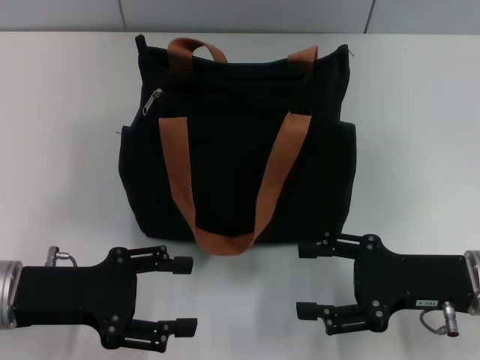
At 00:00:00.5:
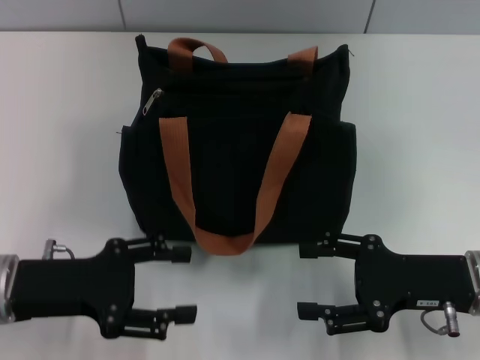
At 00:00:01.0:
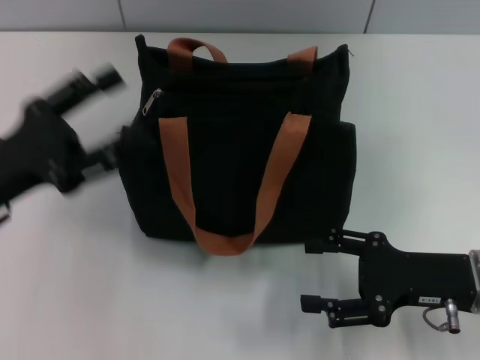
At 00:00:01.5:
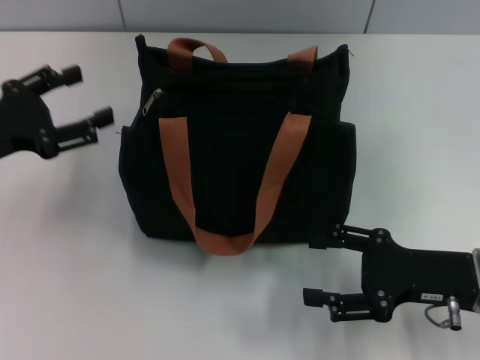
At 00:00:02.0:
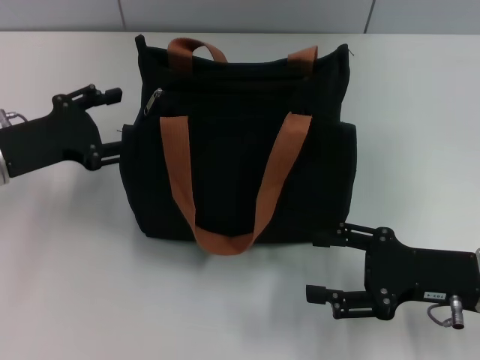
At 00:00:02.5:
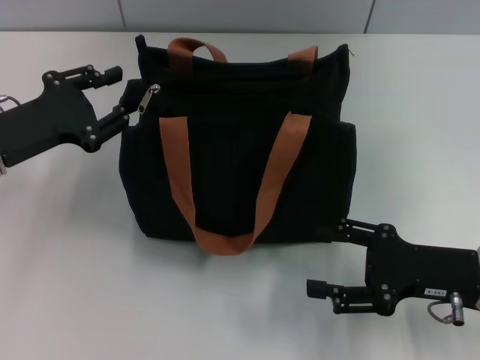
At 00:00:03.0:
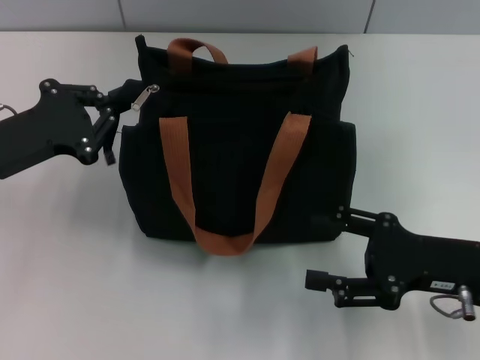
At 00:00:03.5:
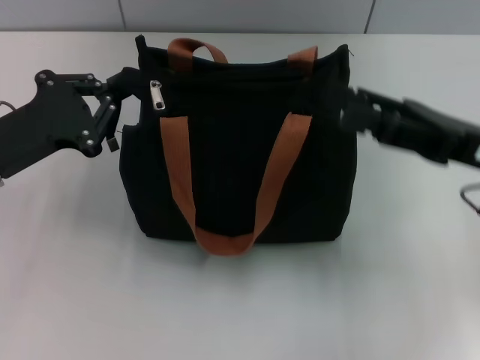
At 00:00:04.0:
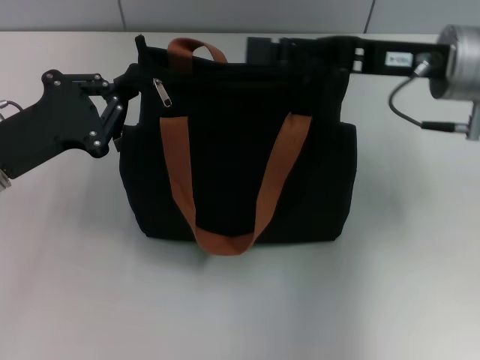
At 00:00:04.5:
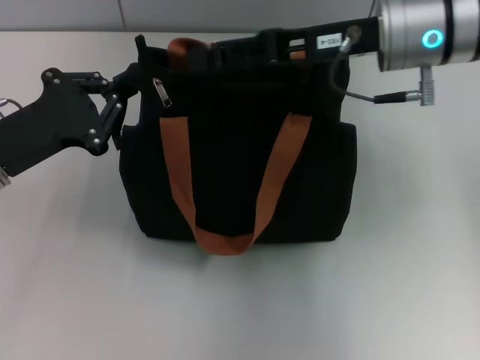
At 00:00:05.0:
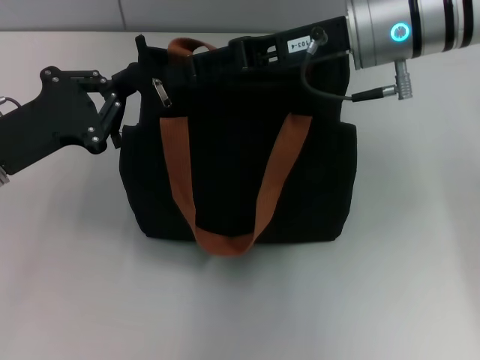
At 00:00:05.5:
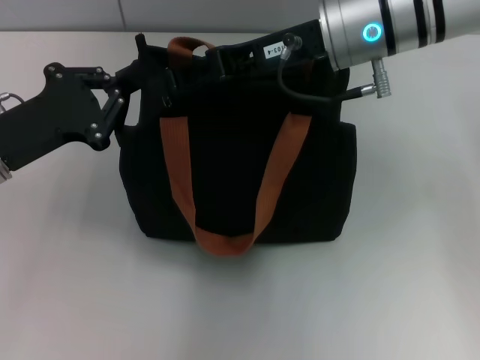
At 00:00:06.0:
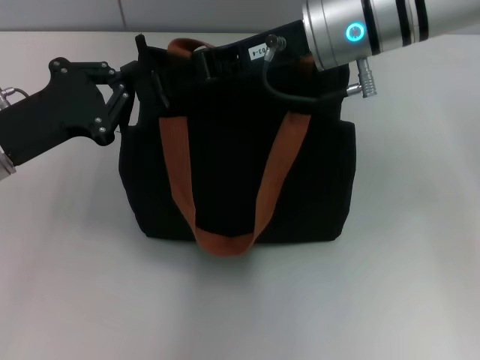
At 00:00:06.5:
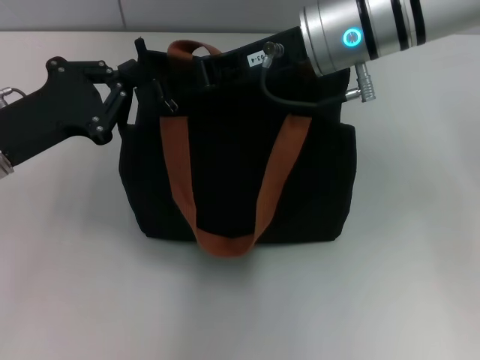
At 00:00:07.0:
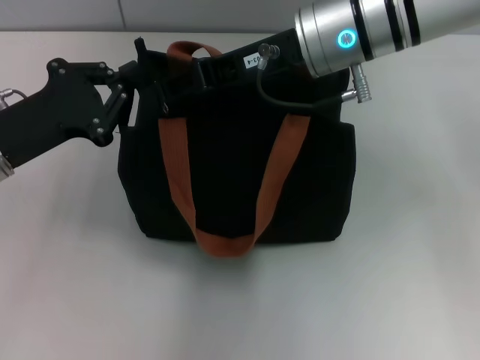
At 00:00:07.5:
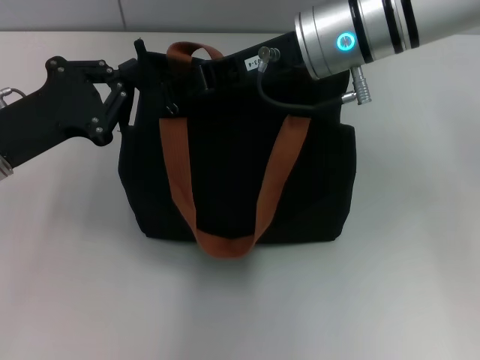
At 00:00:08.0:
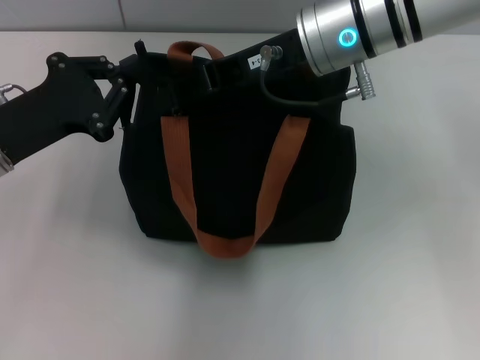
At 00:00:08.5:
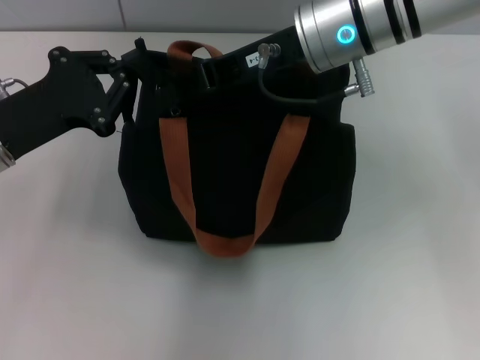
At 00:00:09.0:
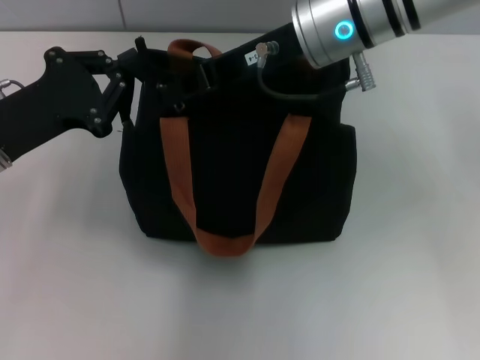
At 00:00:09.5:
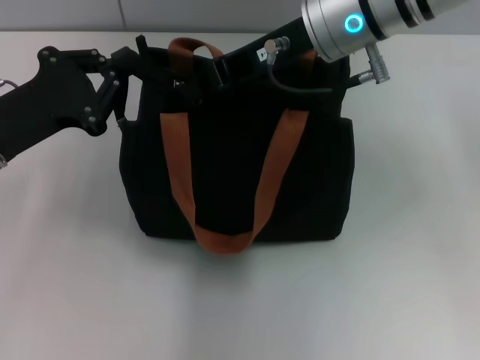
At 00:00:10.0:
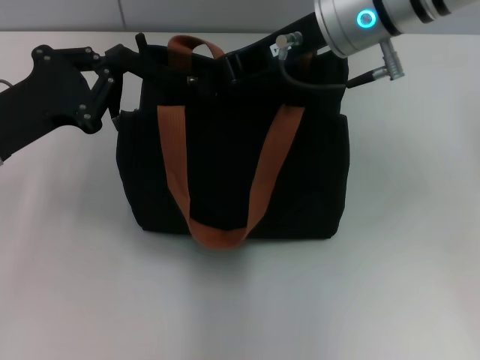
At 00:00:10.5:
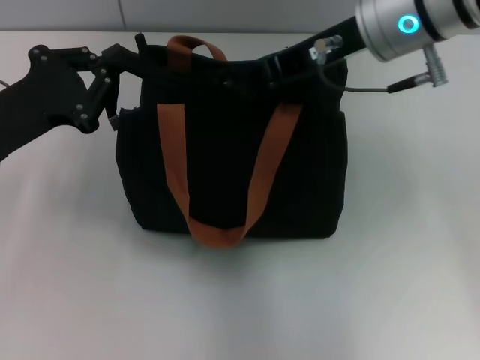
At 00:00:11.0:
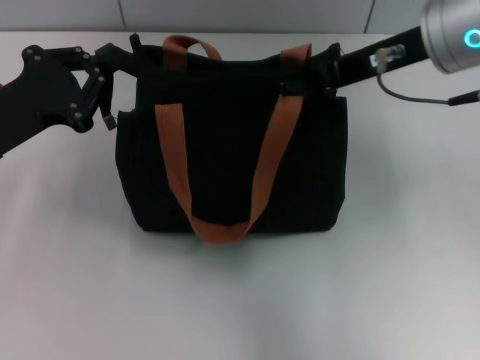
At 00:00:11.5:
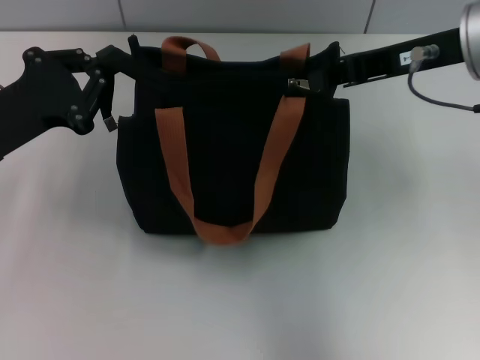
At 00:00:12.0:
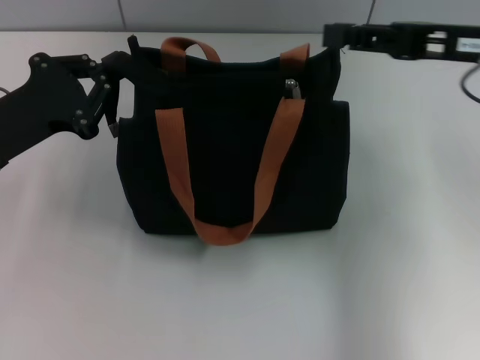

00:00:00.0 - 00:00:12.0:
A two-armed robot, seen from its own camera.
Step, 00:00:00.0 - 00:00:11.5: Pull up the zipper with your right hand.
00:00:00.0 - 00:00:02.0: The left gripper moves forward, roughly 10 cm.
00:00:02.0 - 00:00:04.0: The left gripper closes up. Meanwhile the right gripper heads upward, forward and to the left, covering some 20 cm.
00:00:04.0 - 00:00:06.0: The right gripper is displaced to the left by roughly 10 cm.
00:00:06.0 - 00:00:08.0: The right gripper closes.
00:00:08.0 - 00:00:10.0: The grippers make only small movements.
00:00:10.0 - 00:00:12.0: The right gripper goes roughly 15 cm to the right, and opens its fingers.

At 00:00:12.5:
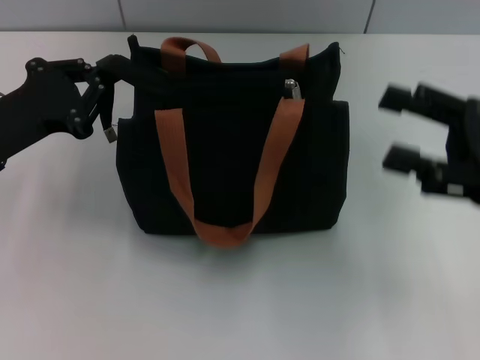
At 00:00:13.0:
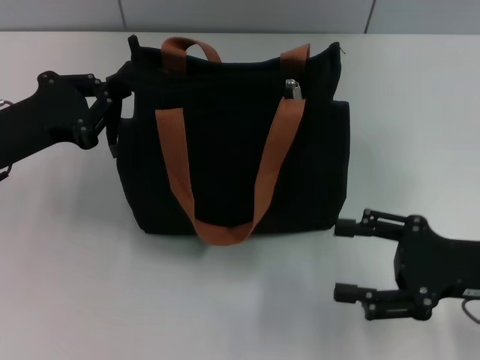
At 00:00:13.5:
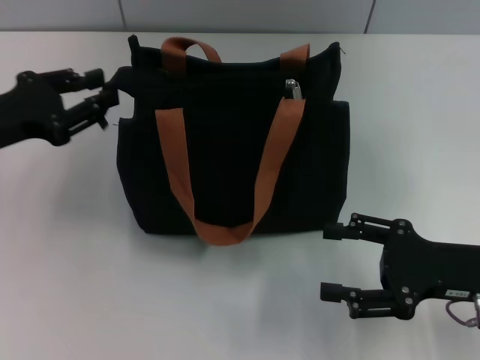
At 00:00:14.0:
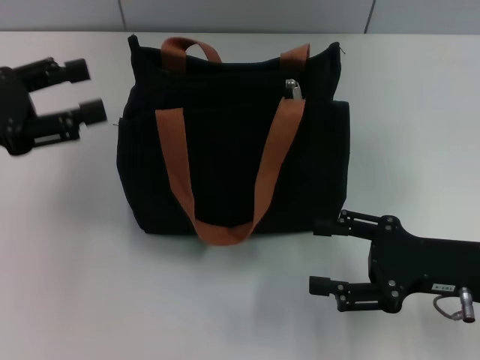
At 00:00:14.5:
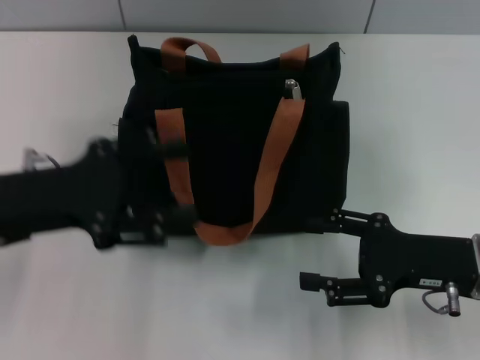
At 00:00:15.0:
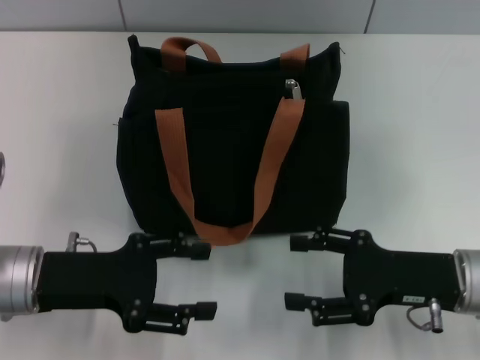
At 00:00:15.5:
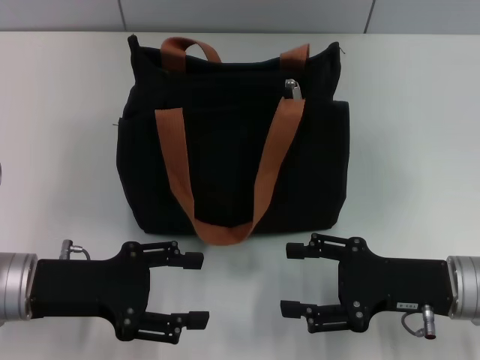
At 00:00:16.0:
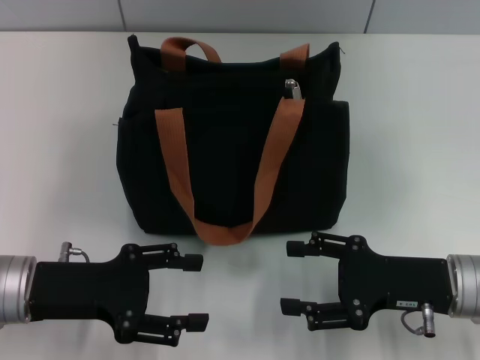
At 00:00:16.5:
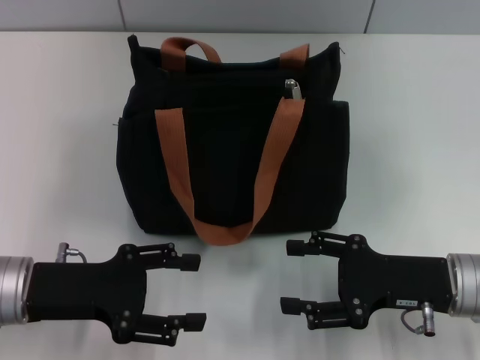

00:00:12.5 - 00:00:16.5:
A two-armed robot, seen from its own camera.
Step, 00:00:12.5 - 00:00:13.5: Grab the zipper with your left hand.
00:00:12.5 - 00:00:14.5: The right gripper moves downward, roughly 10 cm; the left gripper ends up roughly 5 cm from where it was, and opens up.
00:00:14.5 - 00:00:16.5: The left gripper heads downward, covering roughly 5 cm.

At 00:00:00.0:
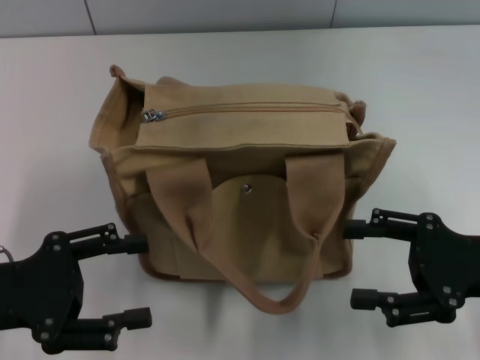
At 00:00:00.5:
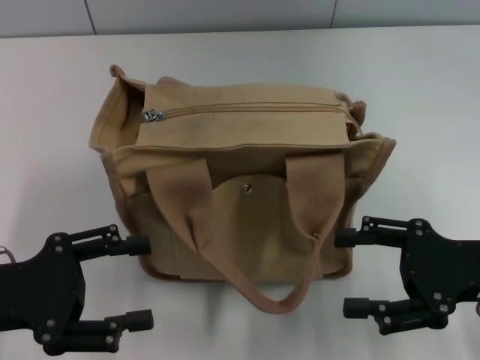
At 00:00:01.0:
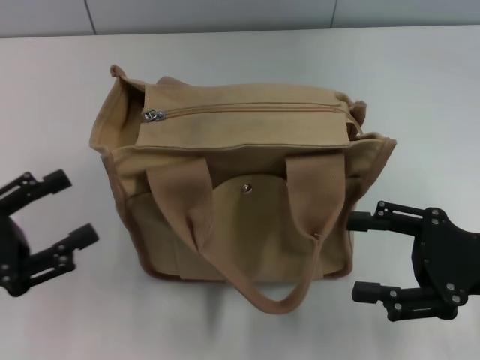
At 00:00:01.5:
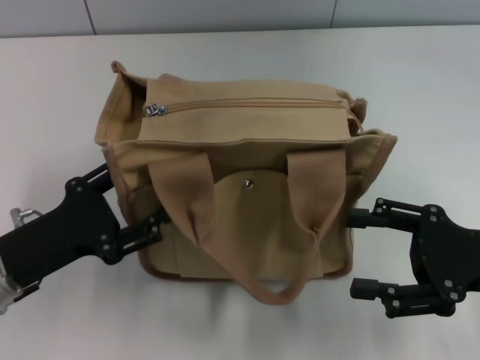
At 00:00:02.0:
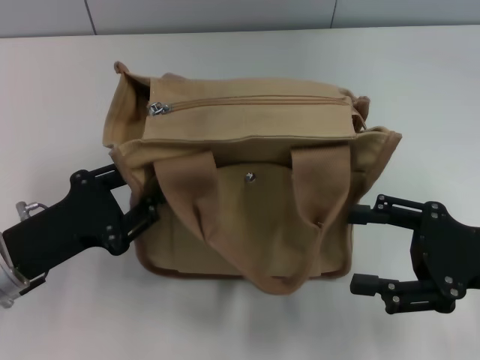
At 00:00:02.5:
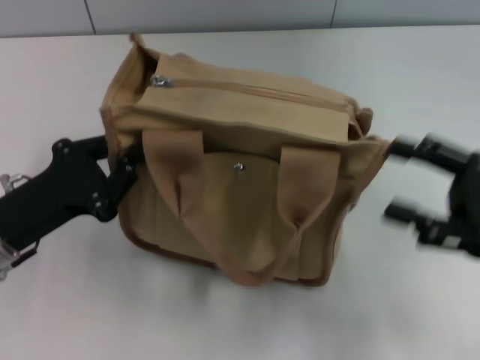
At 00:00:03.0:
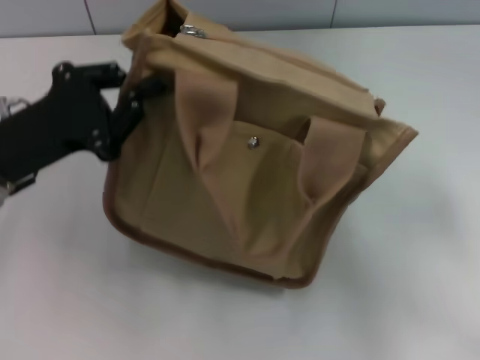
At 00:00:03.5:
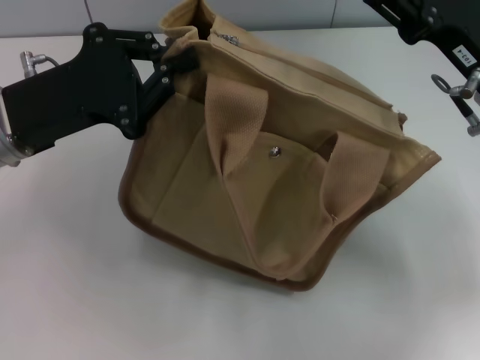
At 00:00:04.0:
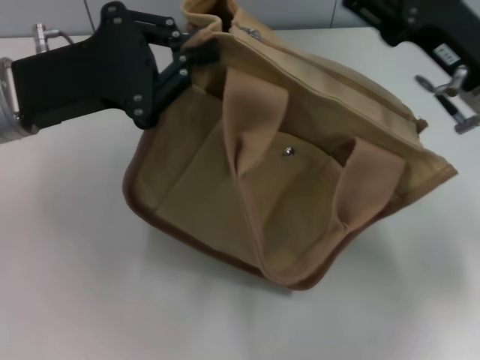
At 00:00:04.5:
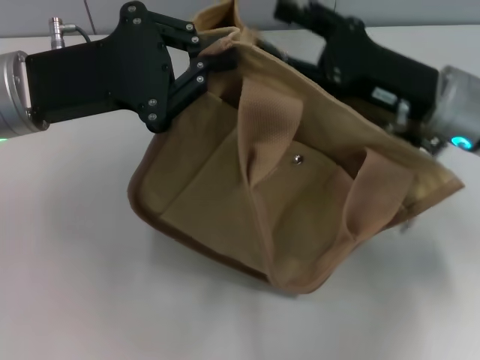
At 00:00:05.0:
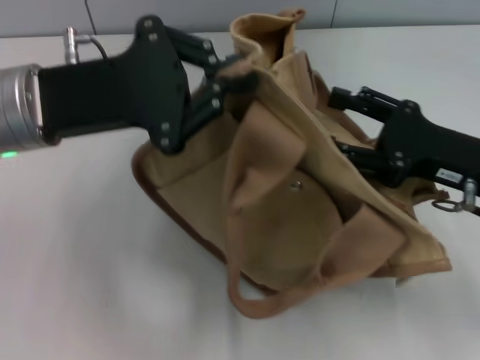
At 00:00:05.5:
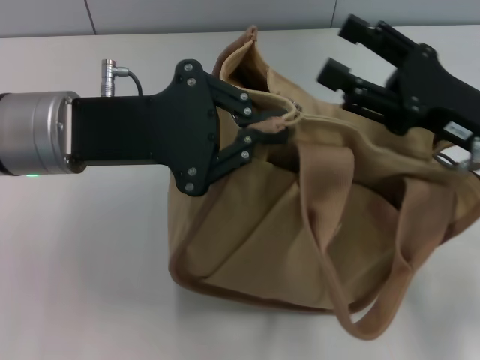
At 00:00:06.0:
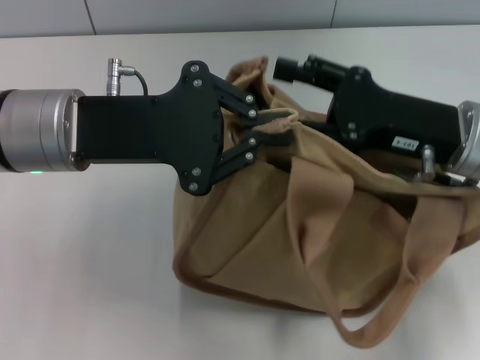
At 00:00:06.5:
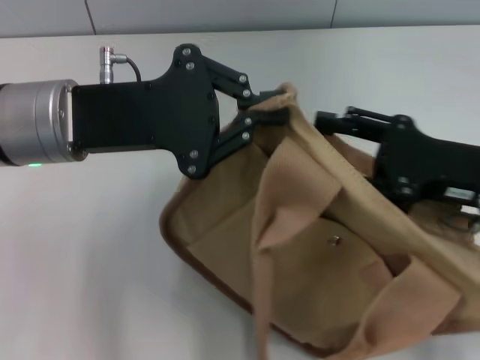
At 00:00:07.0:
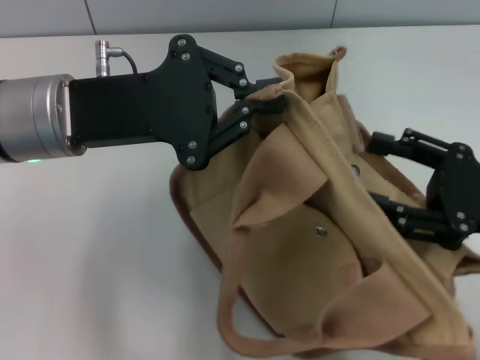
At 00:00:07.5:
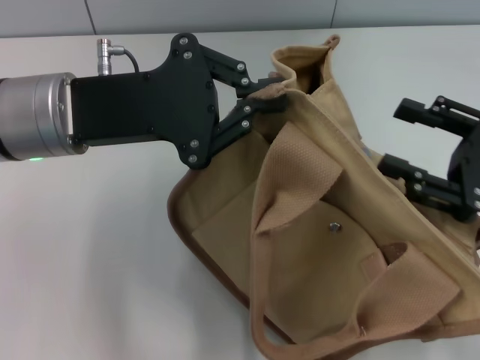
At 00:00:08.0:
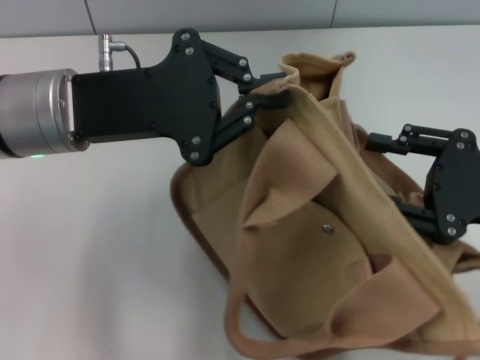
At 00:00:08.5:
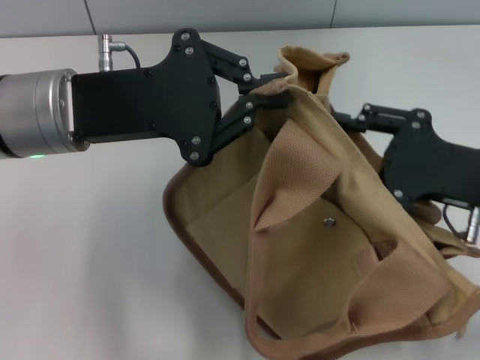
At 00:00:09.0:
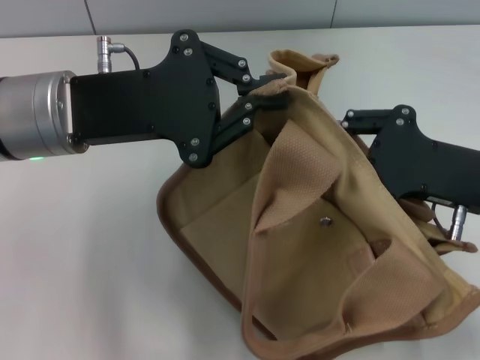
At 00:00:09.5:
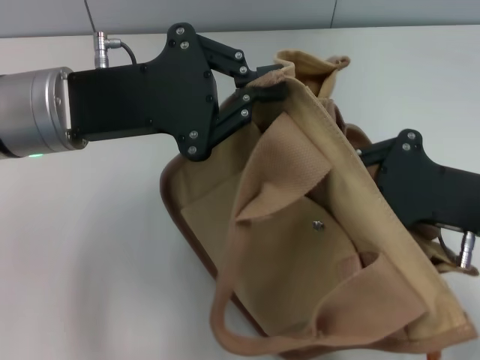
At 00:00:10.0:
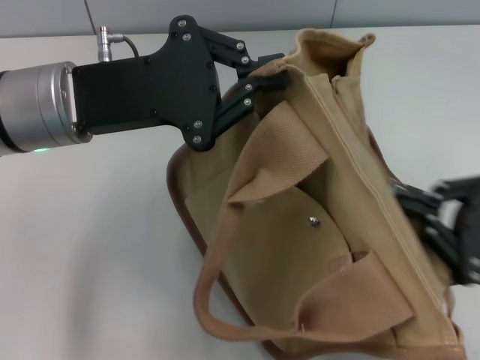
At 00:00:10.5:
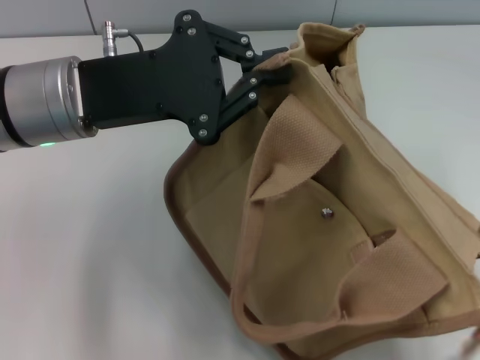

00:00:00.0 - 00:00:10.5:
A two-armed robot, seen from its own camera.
00:00:00.0 - 00:00:02.0: The left gripper moves roughly 5 cm.
00:00:02.0 - 00:00:04.0: The right gripper is displaced forward and to the left by approximately 10 cm. The left gripper goes approximately 15 cm upward and forward, and closes.
00:00:04.0 - 00:00:06.5: The right gripper goes roughly 5 cm backward.
00:00:08.5 - 00:00:10.5: The right gripper is displaced backward and to the right by roughly 15 cm, and closes.
